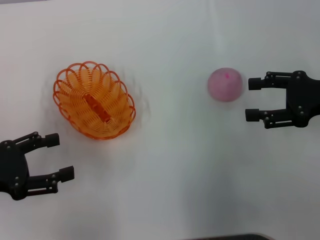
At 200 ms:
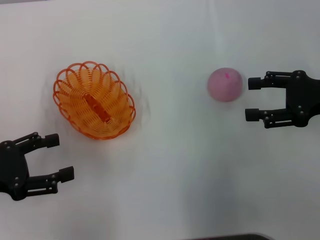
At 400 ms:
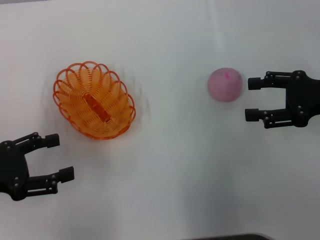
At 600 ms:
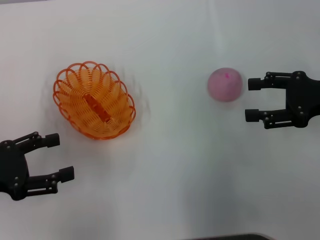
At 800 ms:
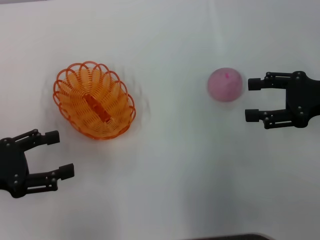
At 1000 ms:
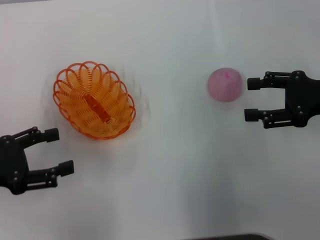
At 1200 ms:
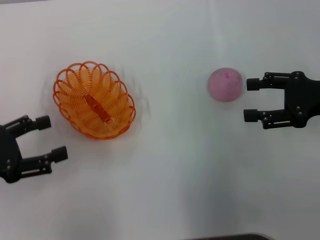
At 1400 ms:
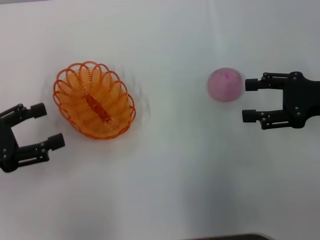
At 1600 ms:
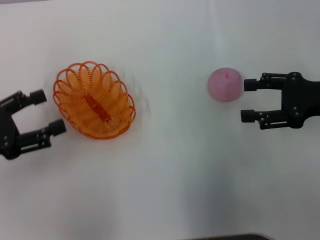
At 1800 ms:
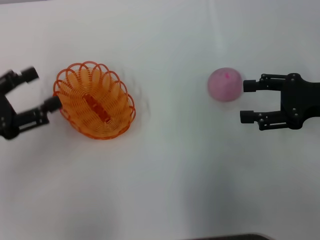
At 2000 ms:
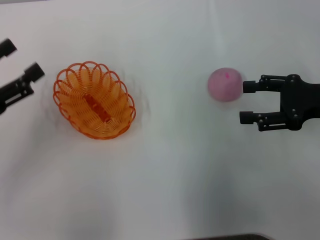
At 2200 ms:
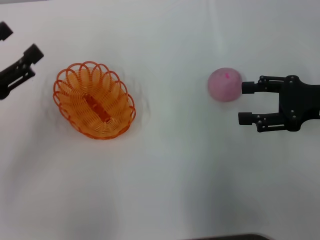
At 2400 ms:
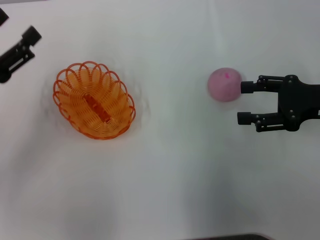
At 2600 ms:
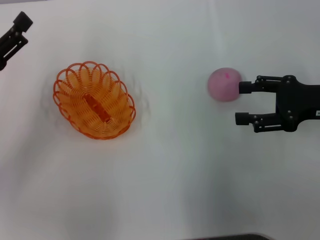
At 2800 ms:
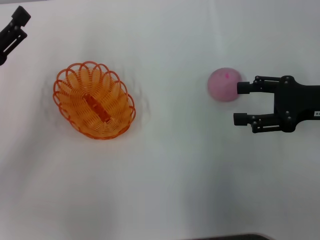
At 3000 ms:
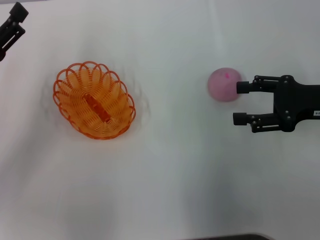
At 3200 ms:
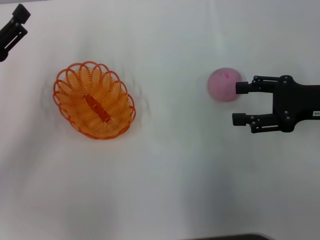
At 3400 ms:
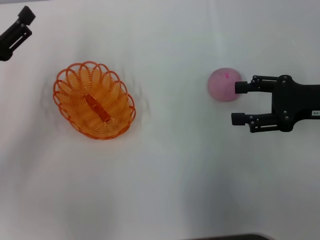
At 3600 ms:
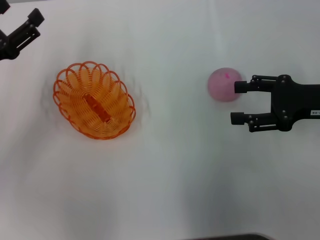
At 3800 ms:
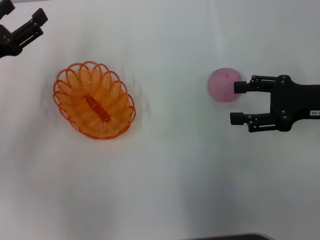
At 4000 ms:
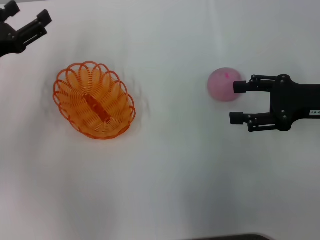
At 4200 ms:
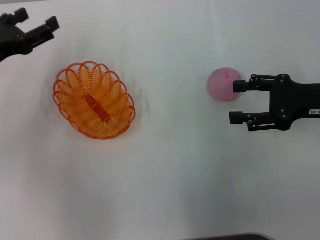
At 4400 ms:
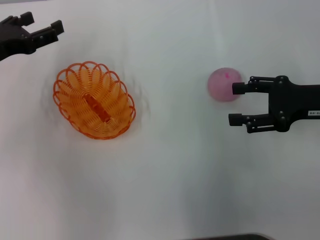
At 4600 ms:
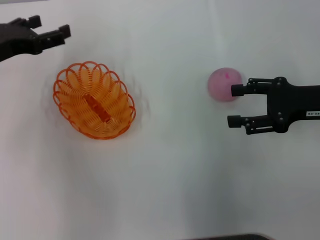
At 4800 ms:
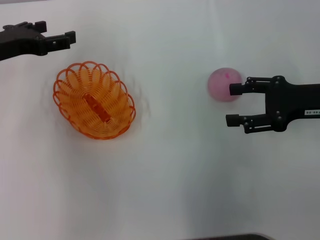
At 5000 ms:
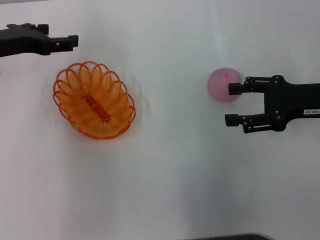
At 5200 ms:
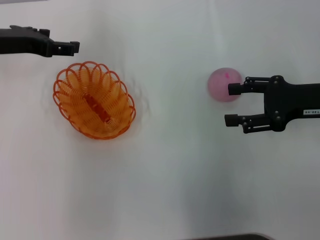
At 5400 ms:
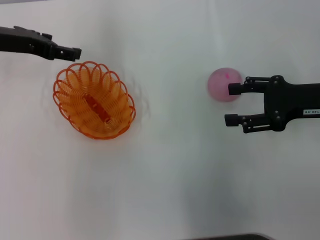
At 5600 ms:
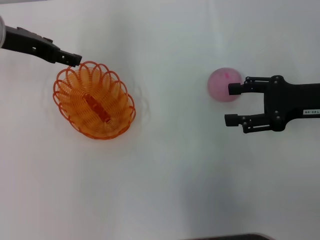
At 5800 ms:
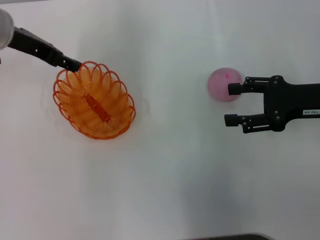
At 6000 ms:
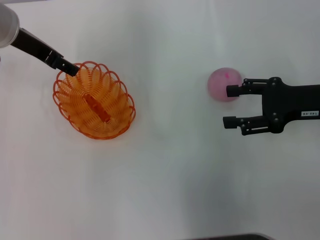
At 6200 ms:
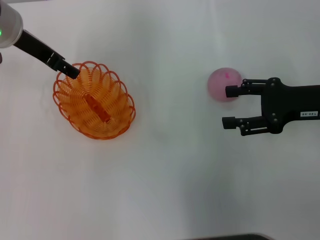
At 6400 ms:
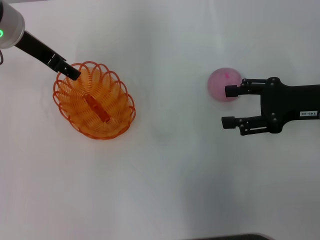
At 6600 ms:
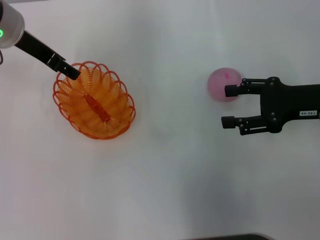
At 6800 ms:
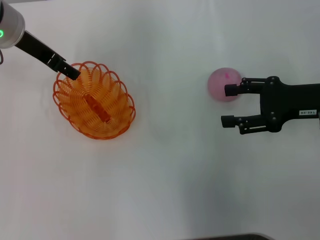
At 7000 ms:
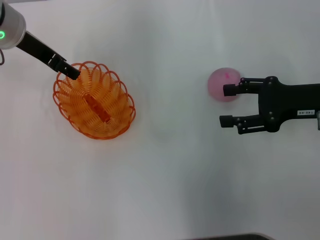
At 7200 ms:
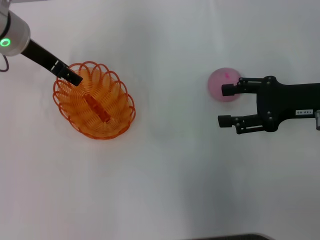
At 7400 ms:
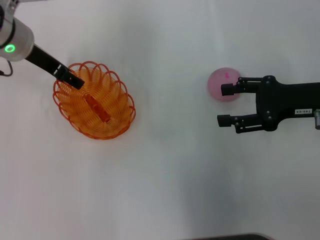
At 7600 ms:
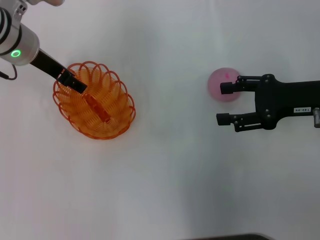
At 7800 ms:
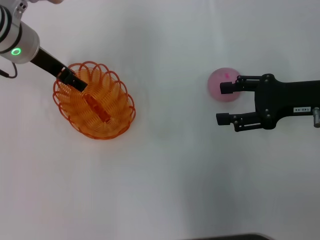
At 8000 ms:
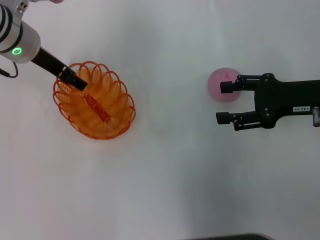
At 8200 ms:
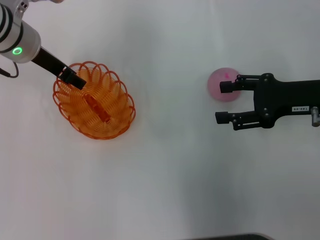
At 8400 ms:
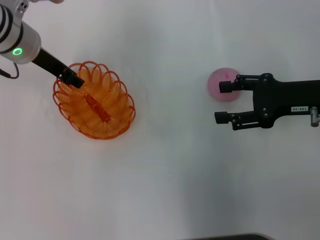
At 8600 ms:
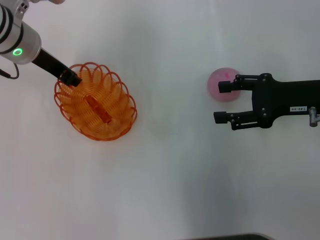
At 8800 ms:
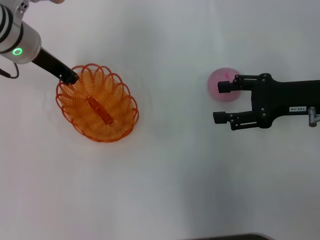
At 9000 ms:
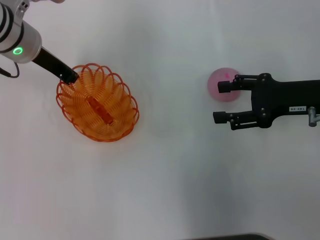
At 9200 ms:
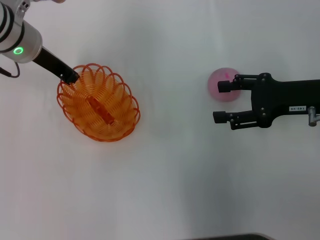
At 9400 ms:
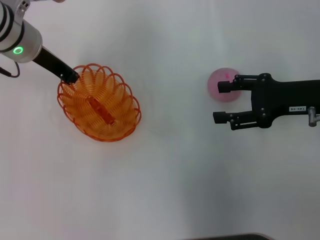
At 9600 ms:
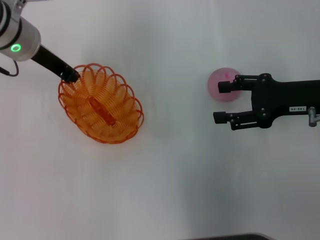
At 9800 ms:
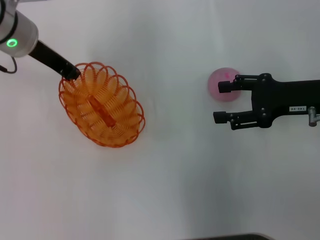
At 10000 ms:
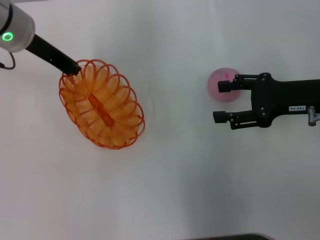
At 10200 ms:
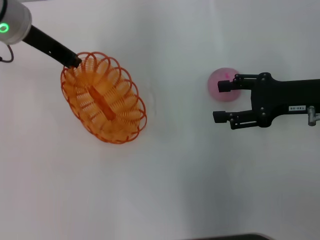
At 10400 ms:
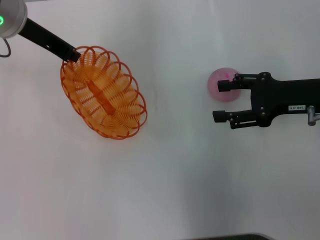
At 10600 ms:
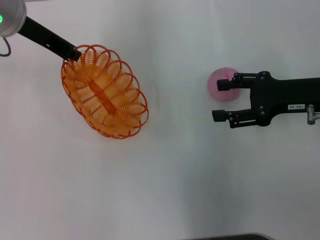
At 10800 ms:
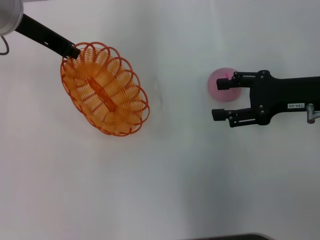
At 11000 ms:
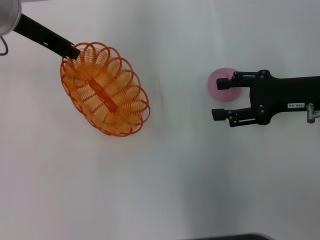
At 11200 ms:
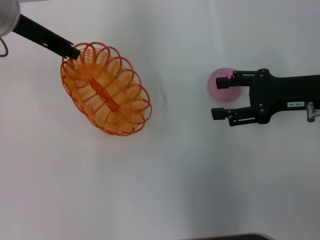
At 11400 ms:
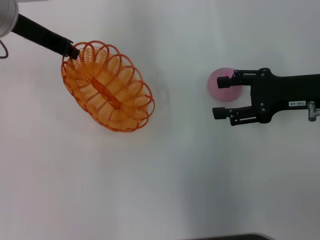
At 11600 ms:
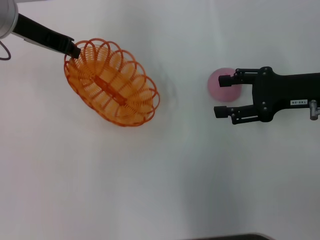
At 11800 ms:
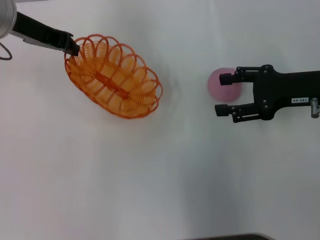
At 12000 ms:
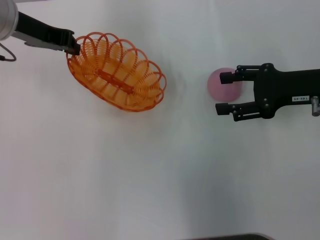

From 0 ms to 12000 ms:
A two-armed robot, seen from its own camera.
Step, from 0 ms to 9800 ms: Pick up the basket with the left gripper.
From 0 ms to 1600 ms: The grippers stay close to where they were, moving slightly.
From 1600 ms to 3000 ms: The left gripper shifts some 5 cm forward.
From 3000 ms to 4400 ms: The left gripper goes some 5 cm forward.
From 4400 ms to 6000 ms: The left gripper is displaced to the right, forward and upward by some 10 cm.
From 6000 ms to 7600 ms: There are only small adjustments of the grippers.
From 7600 ms to 9000 ms: The left gripper closes up.
From 9000 ms to 10400 ms: The left gripper moves upward, about 5 cm.

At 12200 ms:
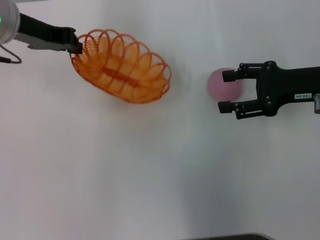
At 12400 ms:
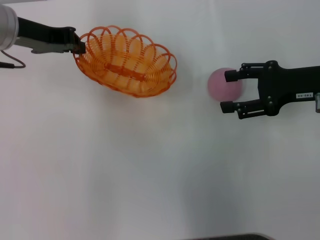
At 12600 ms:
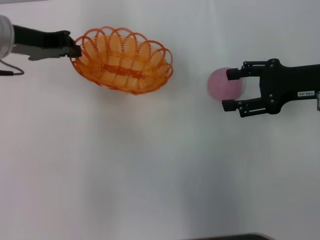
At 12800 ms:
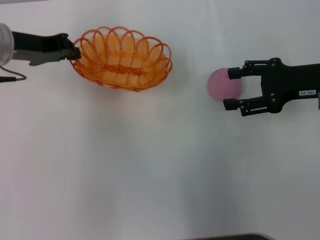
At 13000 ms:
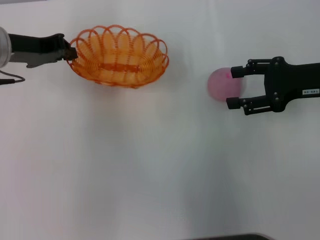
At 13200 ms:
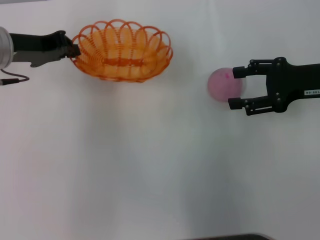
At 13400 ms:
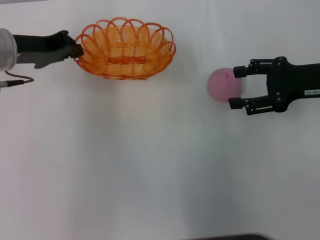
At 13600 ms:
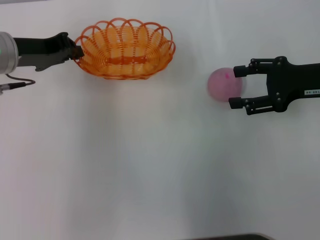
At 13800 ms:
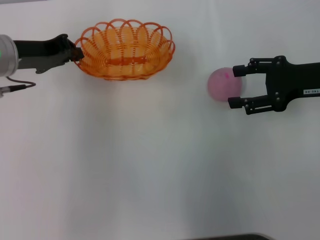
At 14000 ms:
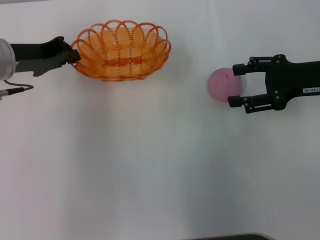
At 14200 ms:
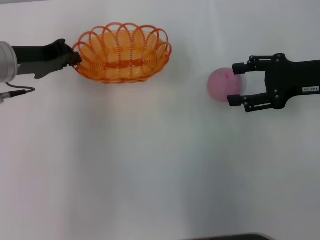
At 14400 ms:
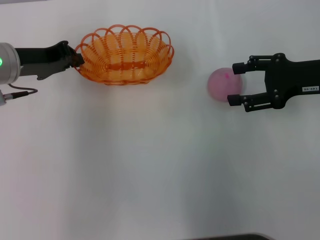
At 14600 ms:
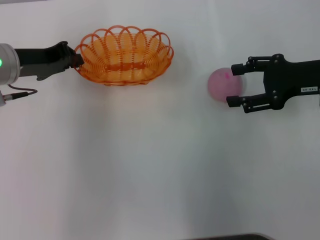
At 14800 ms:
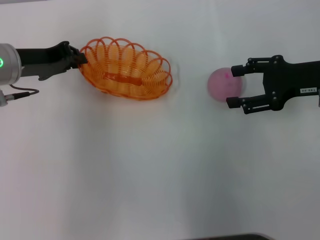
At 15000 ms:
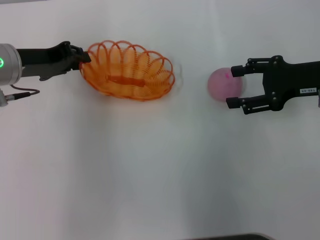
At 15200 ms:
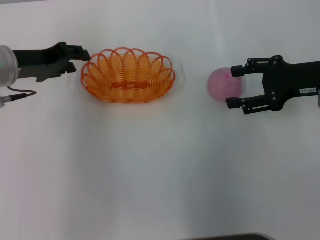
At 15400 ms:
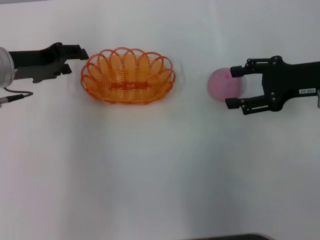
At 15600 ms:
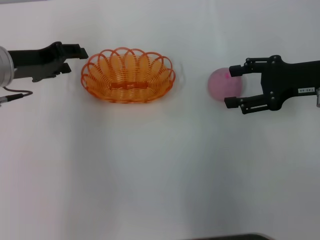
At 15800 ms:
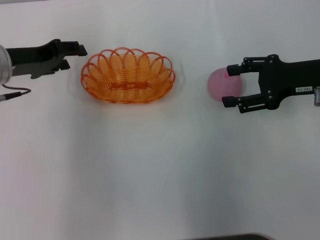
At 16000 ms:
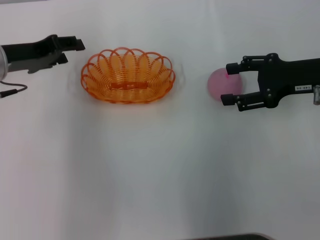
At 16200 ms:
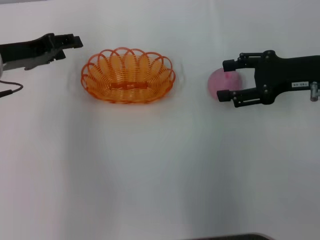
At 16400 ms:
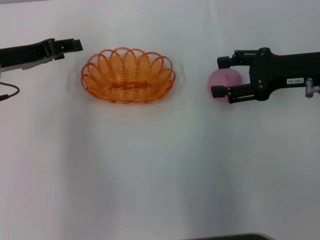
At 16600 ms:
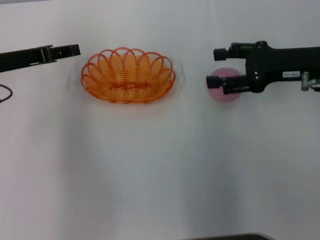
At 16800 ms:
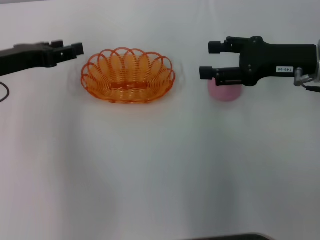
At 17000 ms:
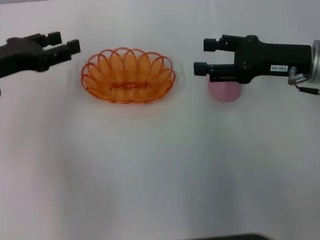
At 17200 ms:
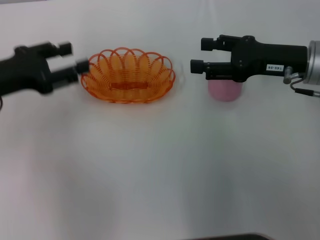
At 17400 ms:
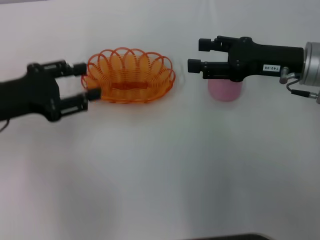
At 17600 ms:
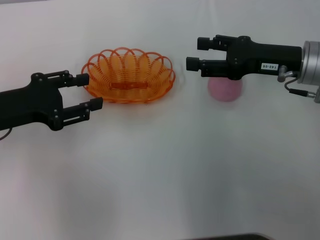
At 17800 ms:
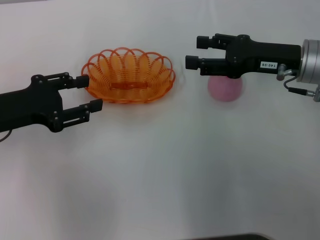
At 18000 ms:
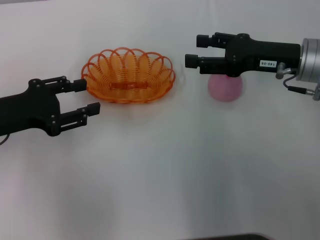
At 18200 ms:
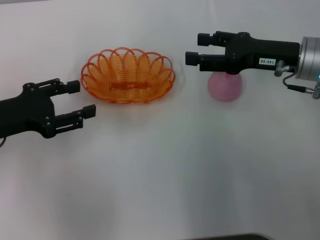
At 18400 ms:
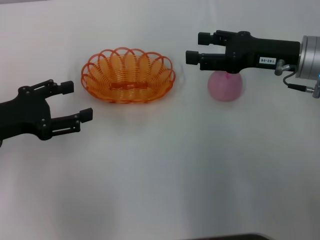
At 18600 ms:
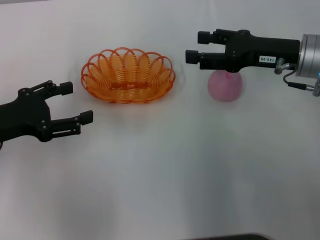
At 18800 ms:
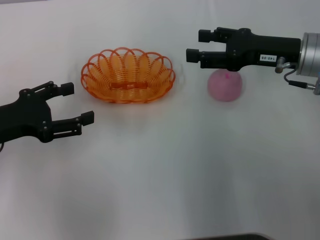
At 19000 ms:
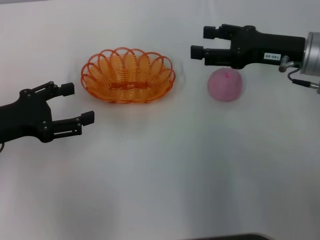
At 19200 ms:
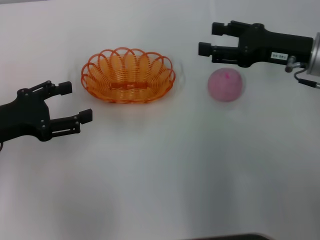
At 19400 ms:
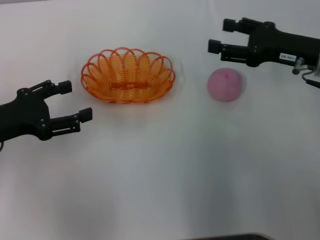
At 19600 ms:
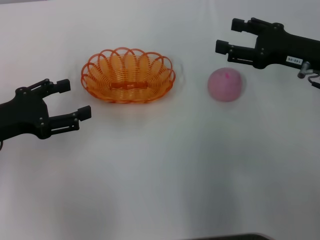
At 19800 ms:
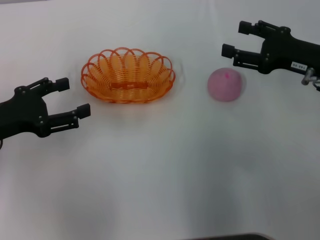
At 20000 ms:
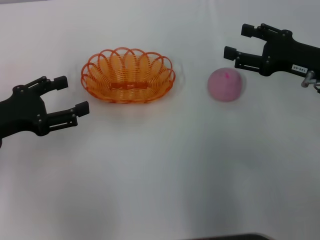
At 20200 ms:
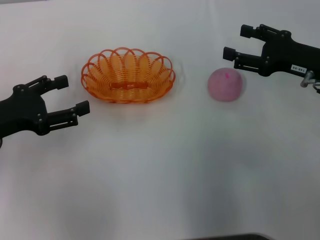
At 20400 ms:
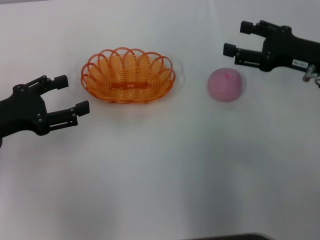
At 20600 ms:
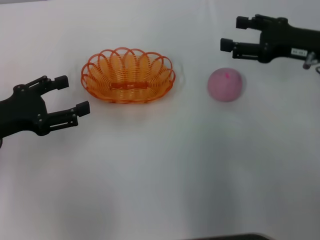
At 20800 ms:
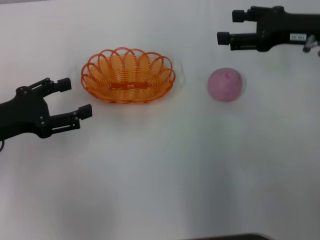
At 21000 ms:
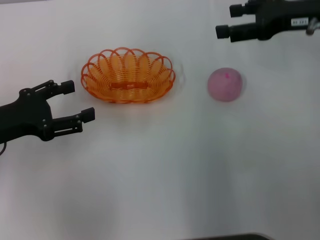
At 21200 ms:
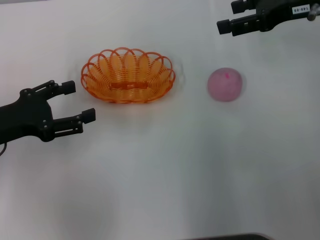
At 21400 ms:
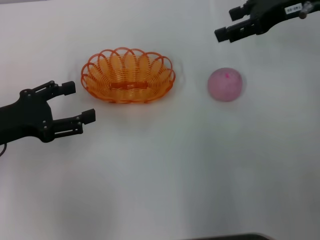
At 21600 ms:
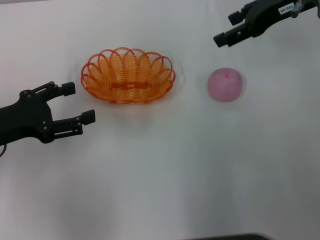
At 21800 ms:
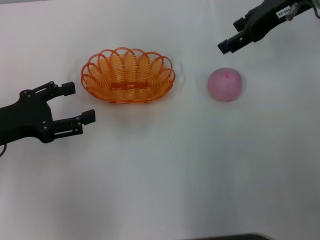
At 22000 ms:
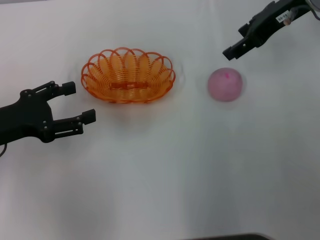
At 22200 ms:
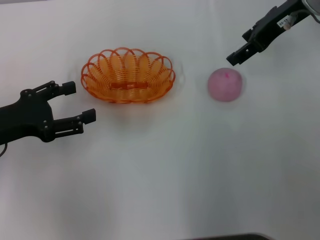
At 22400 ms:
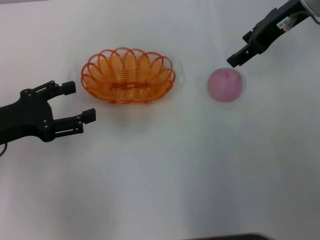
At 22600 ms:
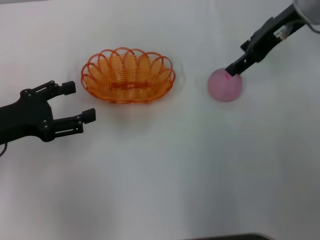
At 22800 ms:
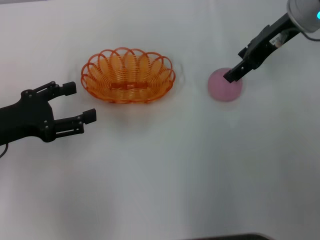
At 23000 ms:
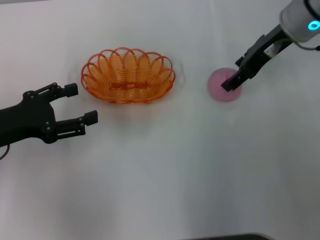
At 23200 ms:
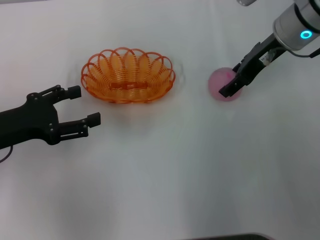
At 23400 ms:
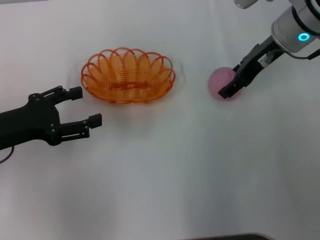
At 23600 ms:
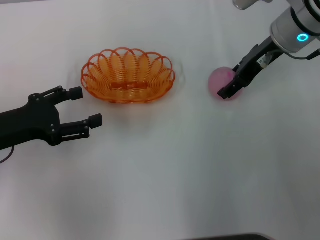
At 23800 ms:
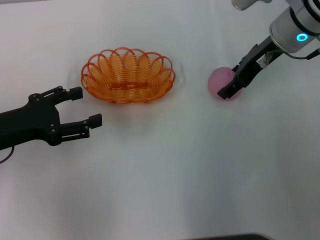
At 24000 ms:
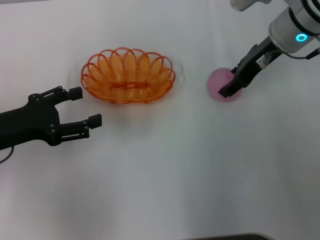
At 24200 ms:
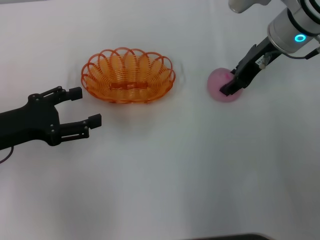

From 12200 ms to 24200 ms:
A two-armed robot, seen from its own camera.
Step, from 12200 ms to 15600 ms: Place the basket in the center of view with the left gripper.
From 12200 ms to 13800 ms: The left gripper goes roughly 5 cm downward.
From 13800 ms to 15200 ms: The grippers make only small movements.
From 16600 ms to 18200 ms: The left gripper shifts approximately 5 cm backward.
From 18200 ms to 19800 ms: The right gripper ends up some 5 cm from where it was.
From 19800 ms to 21200 ms: The right gripper travels upward and forward by about 15 cm.
From 21200 ms to 22600 ms: The right gripper goes about 5 cm to the left.
From 22600 ms to 24200 ms: The right gripper changes place by about 5 cm.
